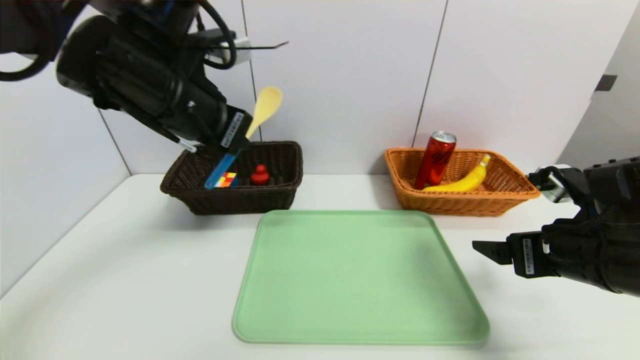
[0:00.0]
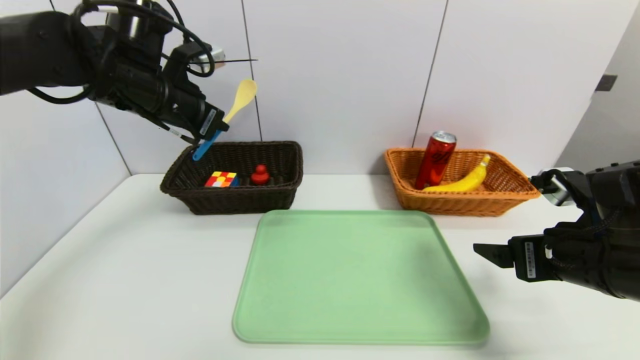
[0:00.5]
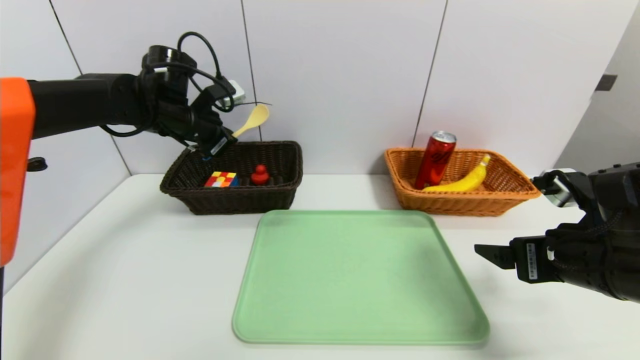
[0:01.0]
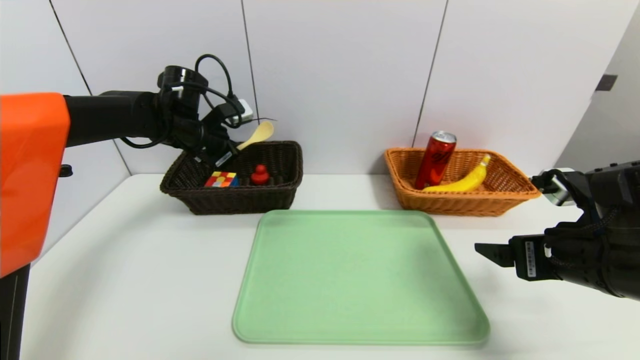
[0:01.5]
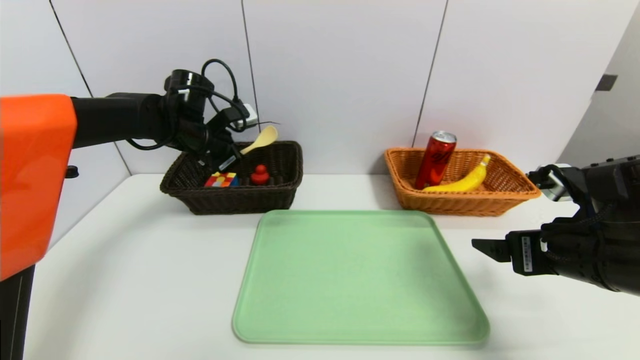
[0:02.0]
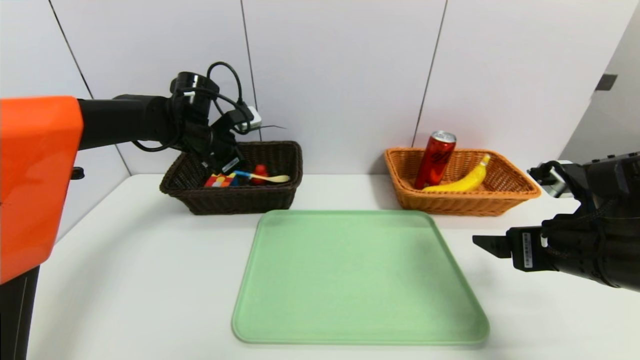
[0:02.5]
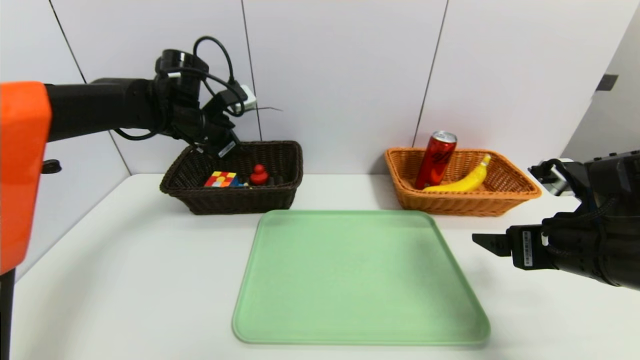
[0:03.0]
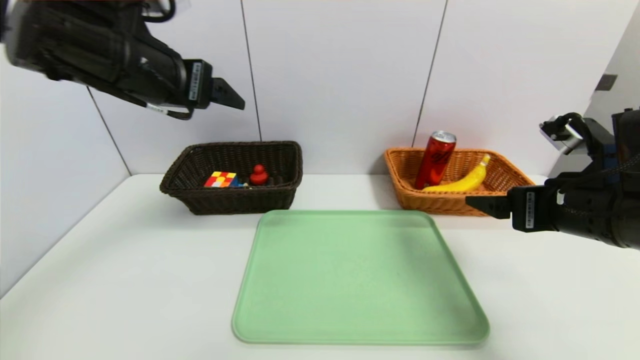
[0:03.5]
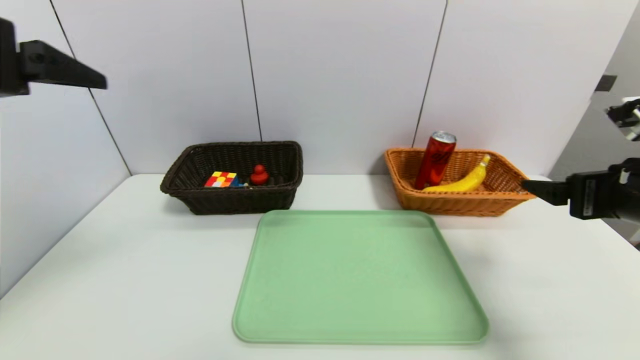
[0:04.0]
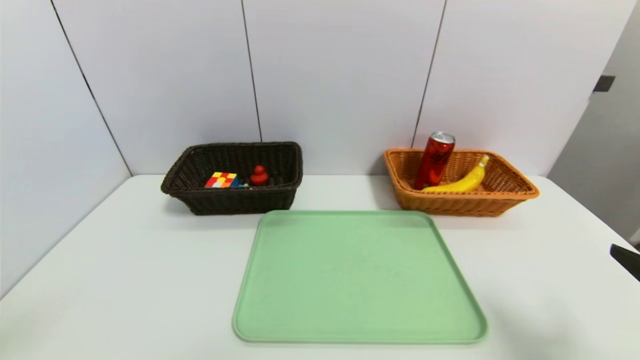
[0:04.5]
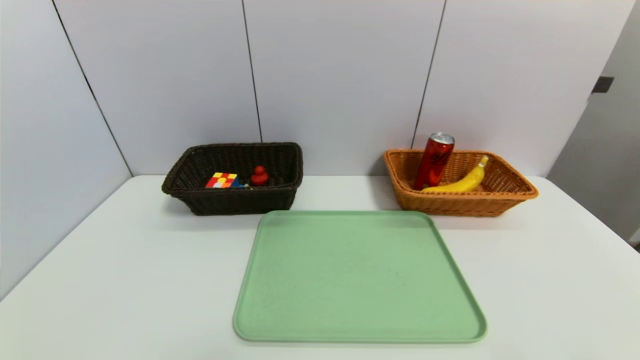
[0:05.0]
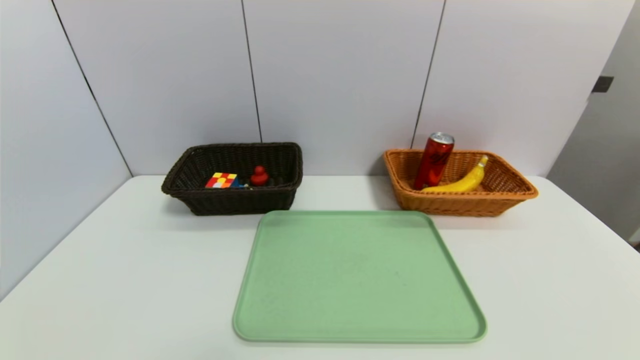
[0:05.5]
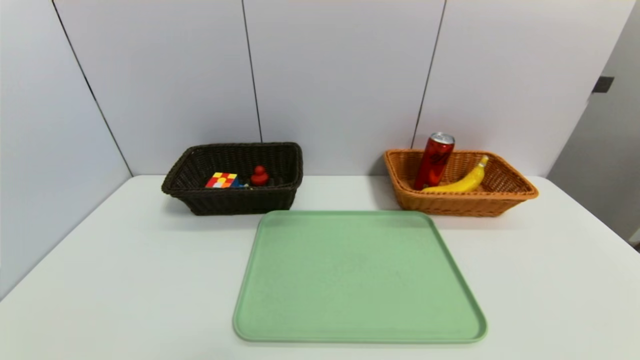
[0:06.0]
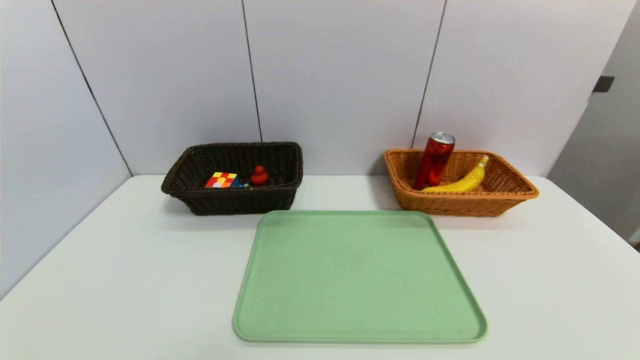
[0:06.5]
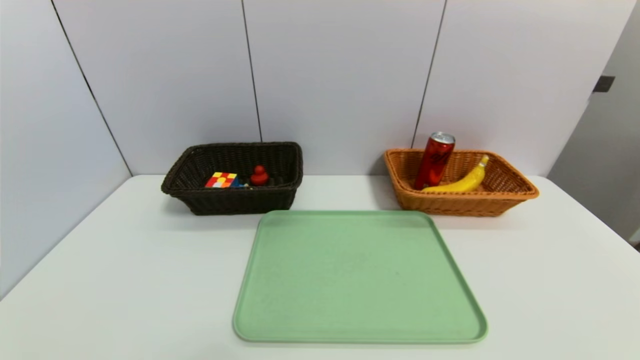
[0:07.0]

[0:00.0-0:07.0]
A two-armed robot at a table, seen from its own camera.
Task of the whole recording: place the food in the right basket with the right gripper, and place the non food items in the left basket with the left gripper.
Step, 0:00.0 to 0:02.5: Grasp the spoon and put it in the left basket.
0:00.0 to 0:02.0: The left gripper travels forward and downward by some 20 cm.
0:02.0 to 0:03.5: The left gripper is displaced backward and upward by approximately 20 cm, and opens its fingers.
0:03.5 to 0:05.0: The left gripper shifts about 35 cm backward; the right gripper shifts some 20 cm backward.

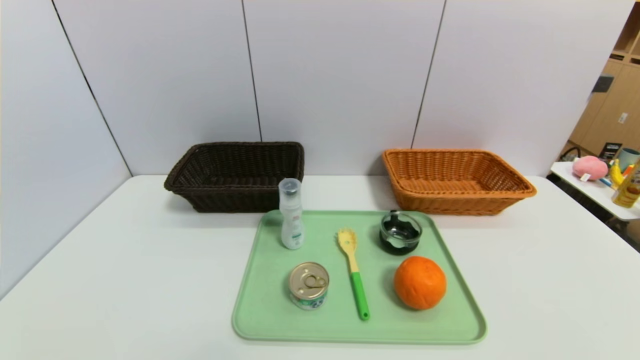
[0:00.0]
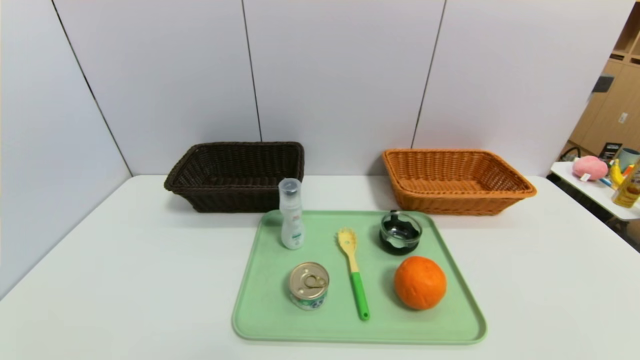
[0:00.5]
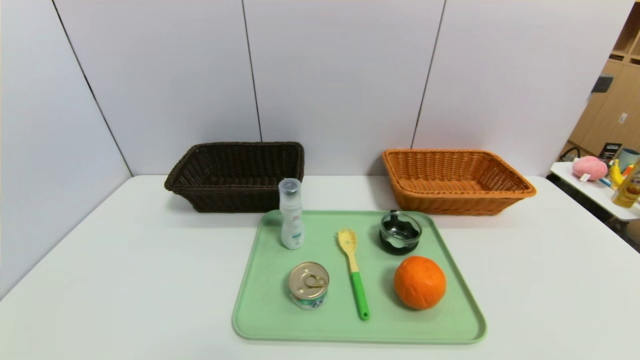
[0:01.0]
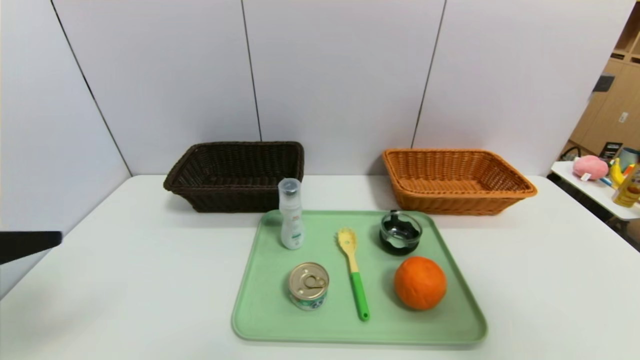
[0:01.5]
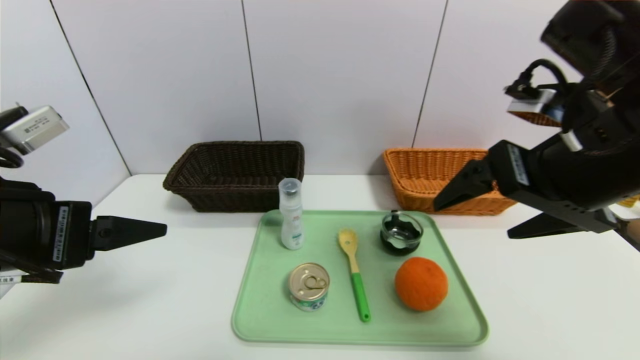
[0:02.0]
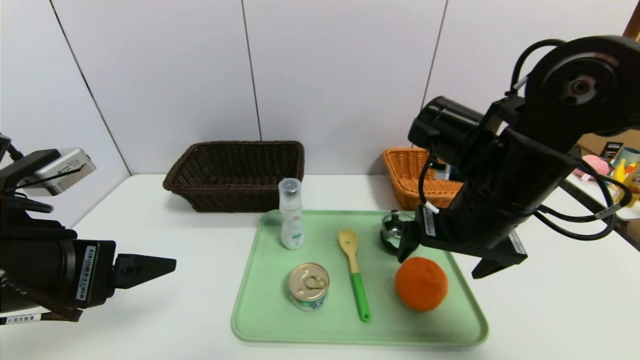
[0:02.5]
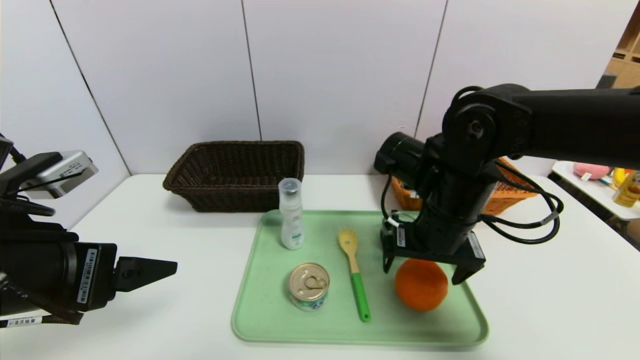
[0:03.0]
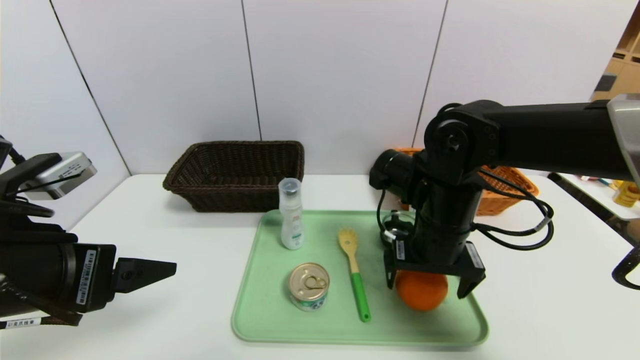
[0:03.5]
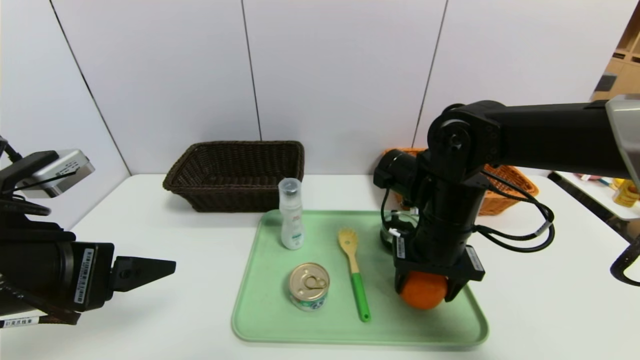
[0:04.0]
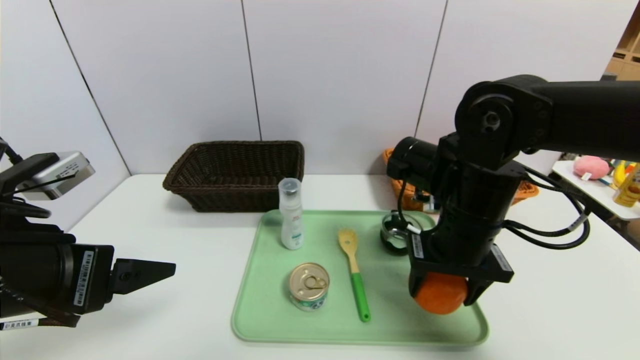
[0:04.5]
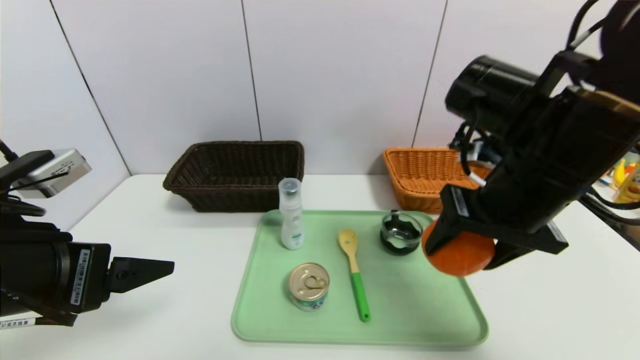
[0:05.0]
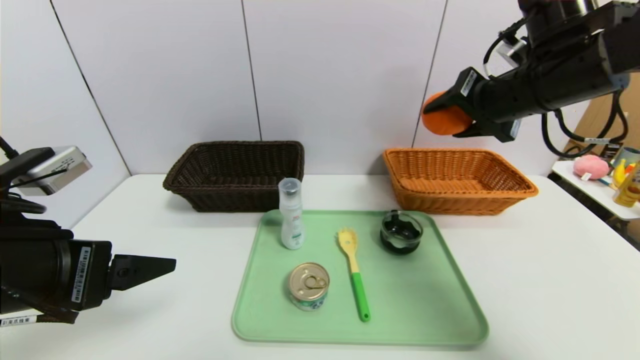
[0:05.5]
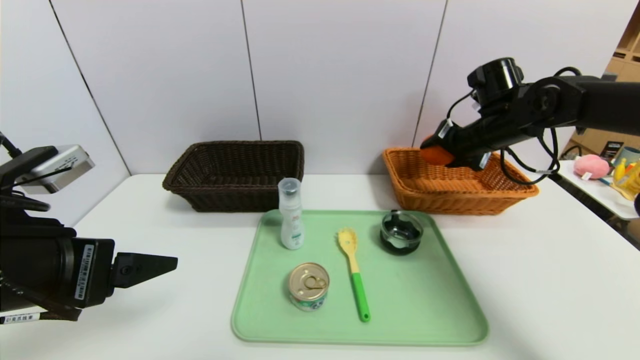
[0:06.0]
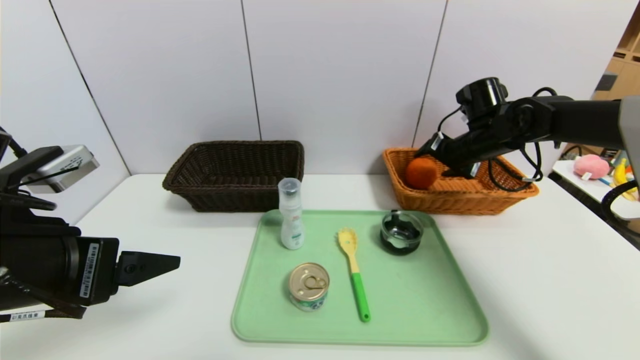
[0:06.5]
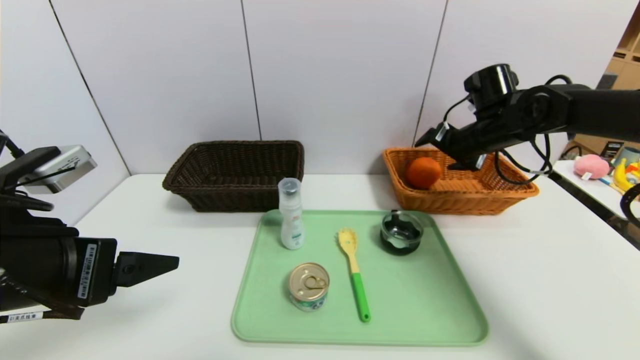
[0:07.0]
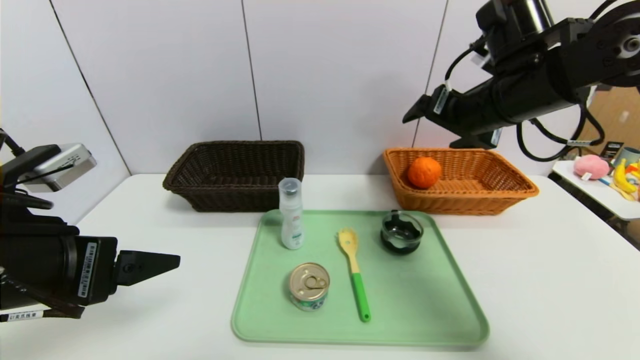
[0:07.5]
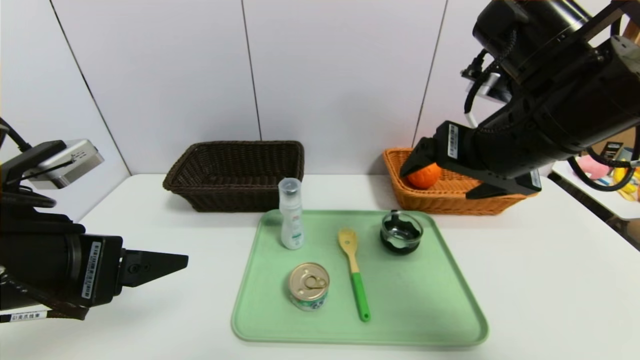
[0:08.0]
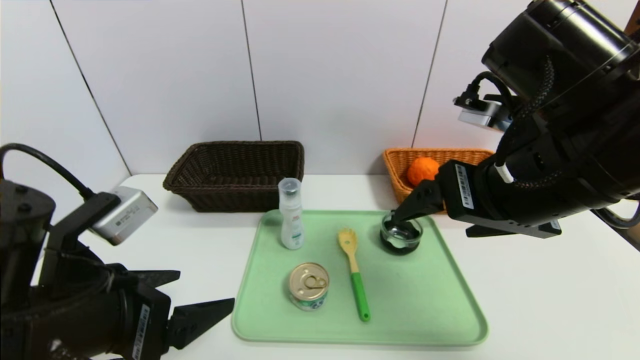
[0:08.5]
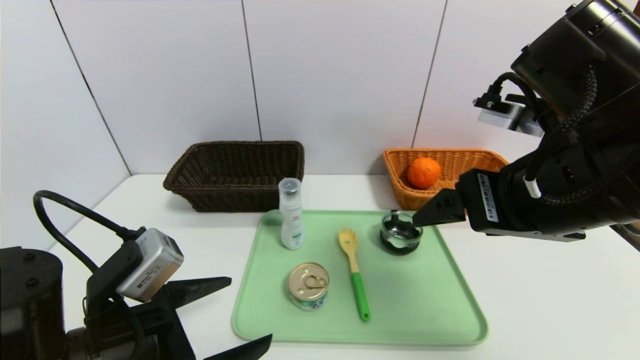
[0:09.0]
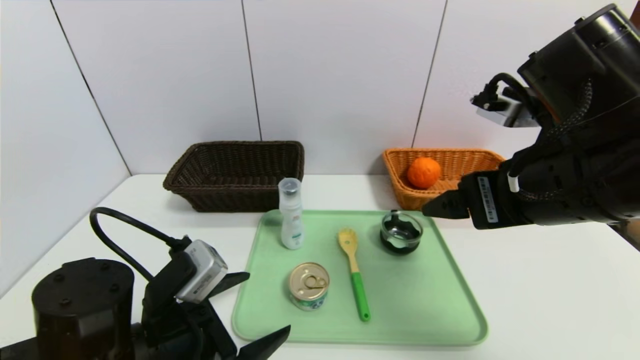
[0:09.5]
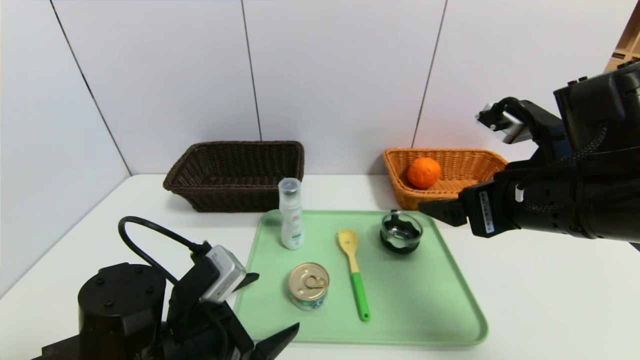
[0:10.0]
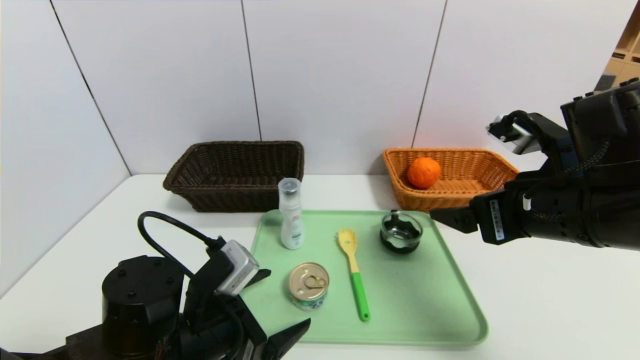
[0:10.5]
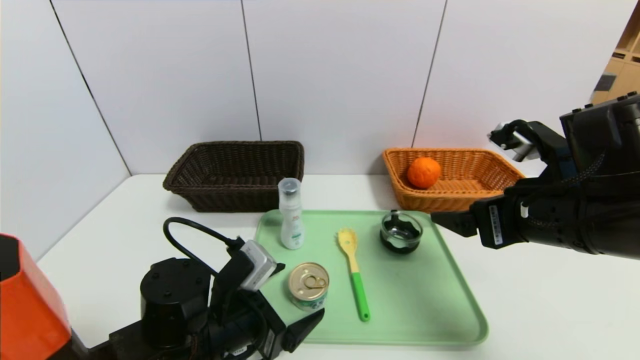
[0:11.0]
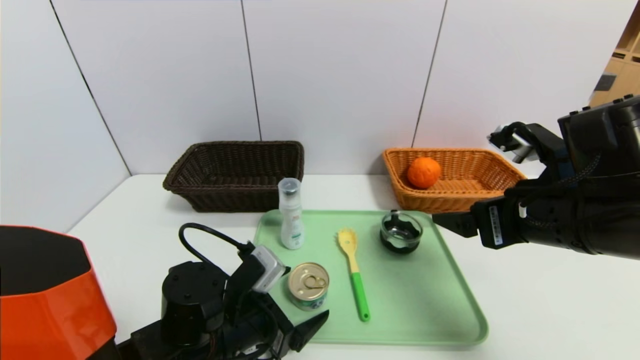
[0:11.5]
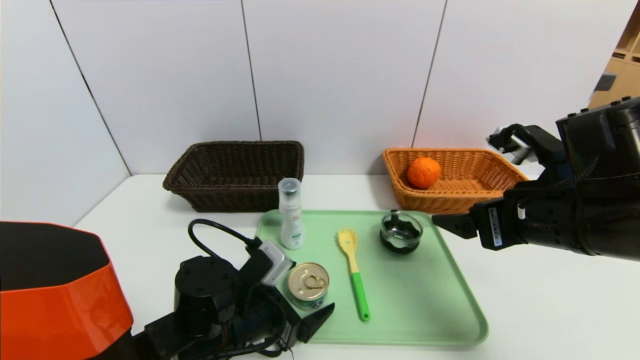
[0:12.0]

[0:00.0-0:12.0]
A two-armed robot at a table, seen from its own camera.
Task of the whole recording: place the food in the right basket with the right gripper, and place the non food items in the left basket with the left gripper.
Step, 0:00.0 to 0:07.0: Grasp the orange and put it in the right basket.
0:00.0 to 0:02.0: The left gripper moves upward and forward, about 25 cm; the right gripper shifts about 35 cm upward, forward and to the left.
0:02.0 to 0:04.0: The right gripper shifts some 15 cm downward, forward and to the left, and closes its fingers.
0:04.0 to 0:06.0: The right gripper shifts approximately 20 cm forward and to the right.
0:06.0 to 0:08.0: The right gripper is displaced backward, to the left and upward by approximately 25 cm, and opens up.
0:08.0 to 0:10.0: The right gripper is displaced downward by some 5 cm. The left gripper moves downward and to the right, some 15 cm.
0:10.0 to 0:12.0: The left gripper moves some 10 cm.

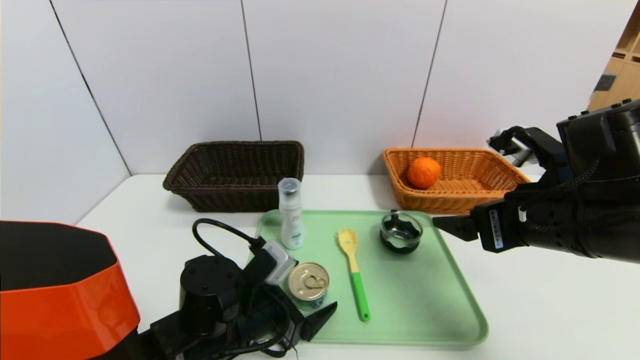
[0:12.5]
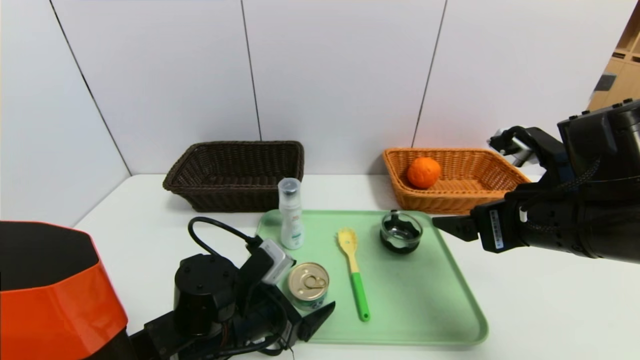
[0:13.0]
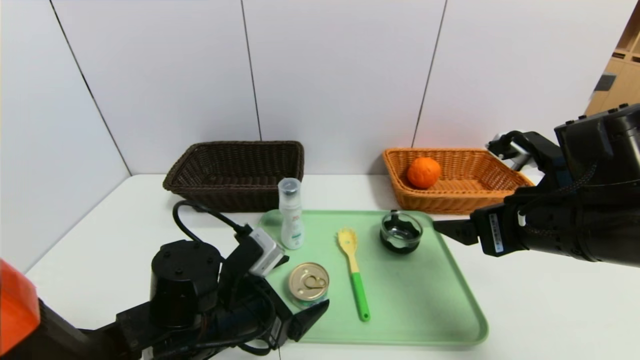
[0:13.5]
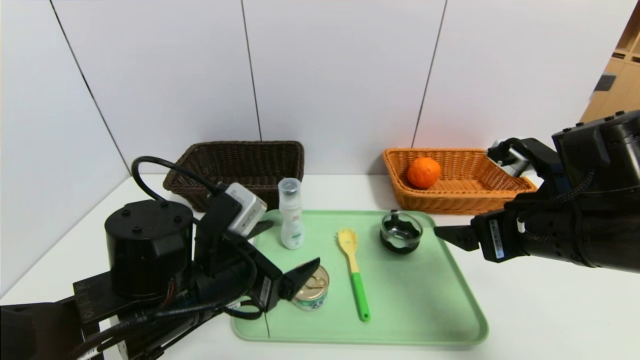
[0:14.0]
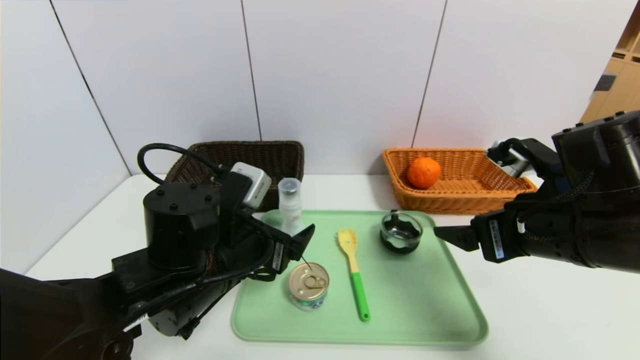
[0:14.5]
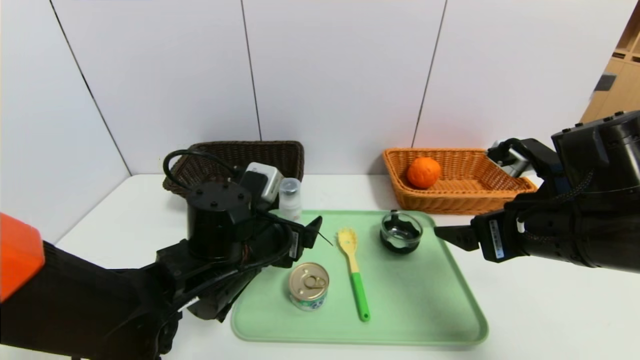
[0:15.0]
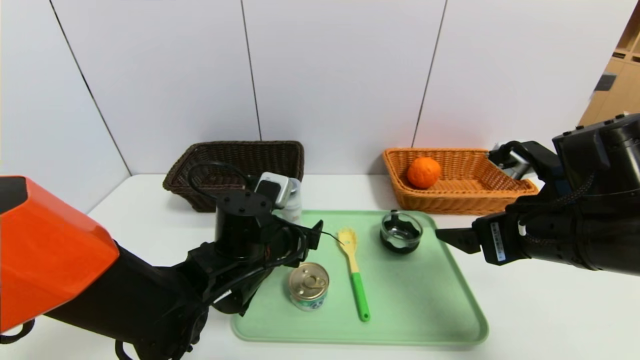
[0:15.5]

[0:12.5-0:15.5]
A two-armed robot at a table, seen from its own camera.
Task of the whole recording: place the food in the right basket with the right gripper, and place the non food items in the left basket with the left gripper.
0:12.5 to 0:14.0: The left gripper goes about 10 cm upward.
0:14.0 to 0:15.5: The left gripper travels forward by approximately 5 cm.
